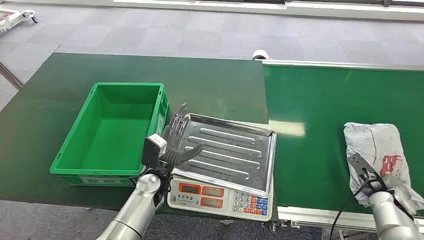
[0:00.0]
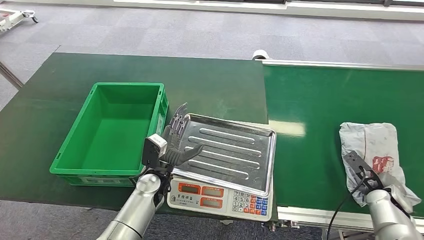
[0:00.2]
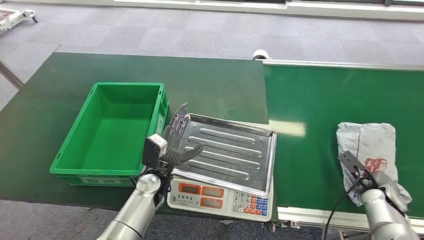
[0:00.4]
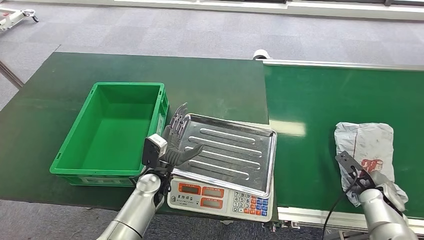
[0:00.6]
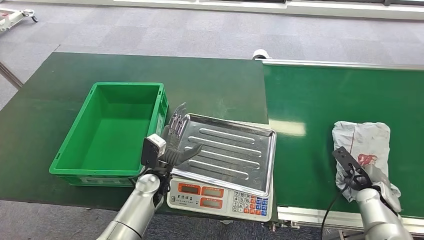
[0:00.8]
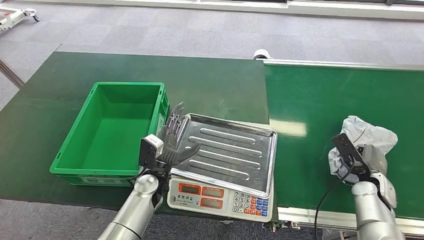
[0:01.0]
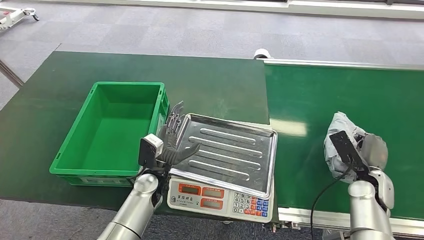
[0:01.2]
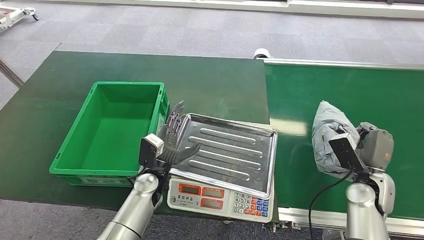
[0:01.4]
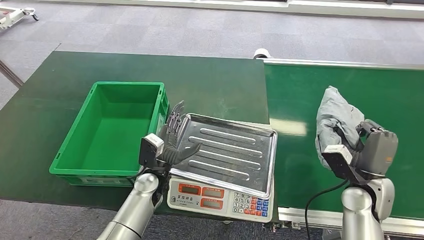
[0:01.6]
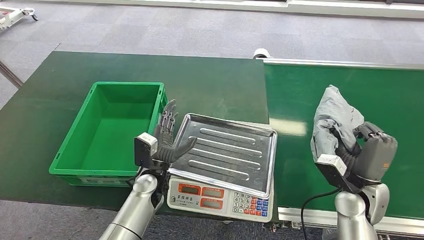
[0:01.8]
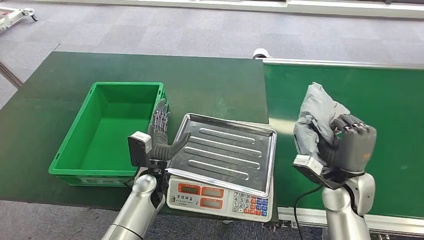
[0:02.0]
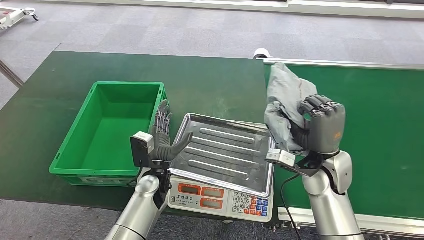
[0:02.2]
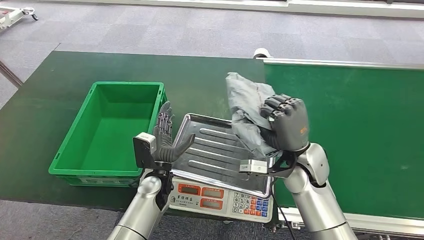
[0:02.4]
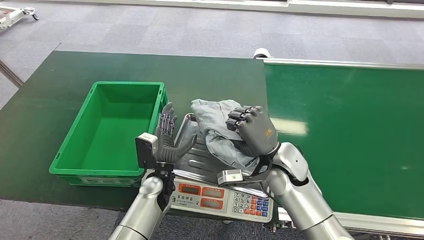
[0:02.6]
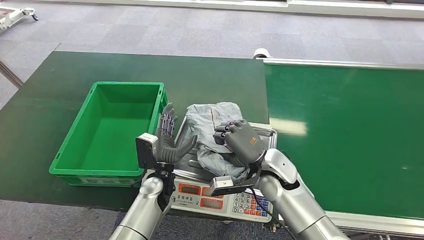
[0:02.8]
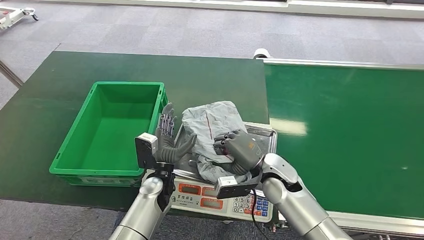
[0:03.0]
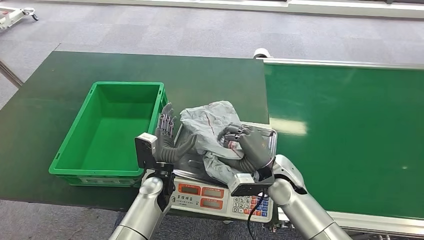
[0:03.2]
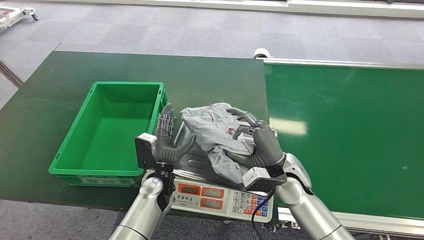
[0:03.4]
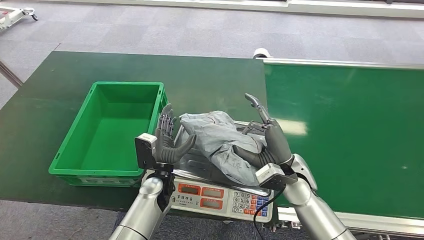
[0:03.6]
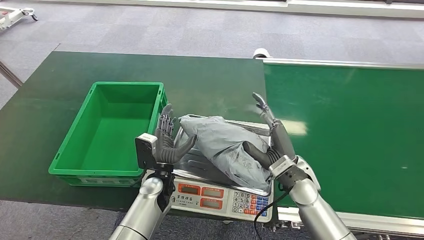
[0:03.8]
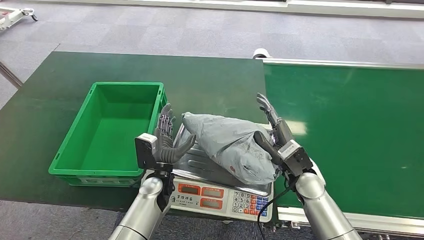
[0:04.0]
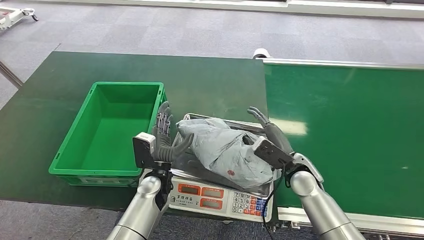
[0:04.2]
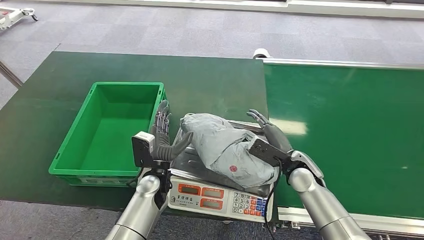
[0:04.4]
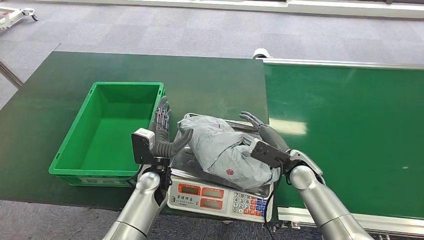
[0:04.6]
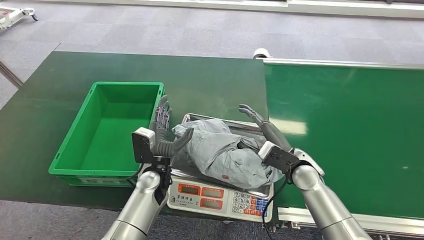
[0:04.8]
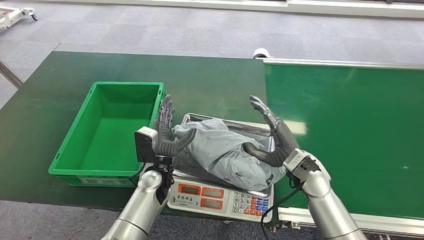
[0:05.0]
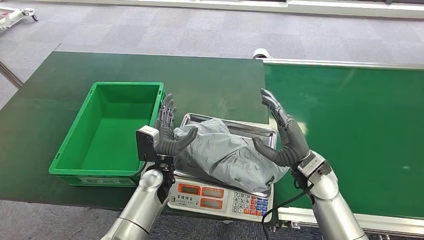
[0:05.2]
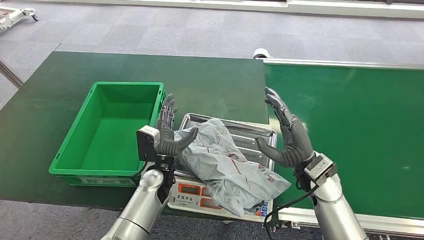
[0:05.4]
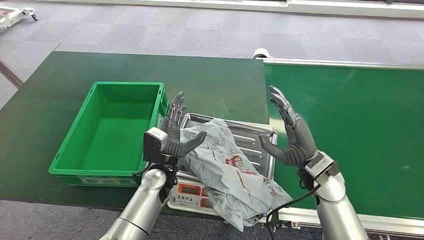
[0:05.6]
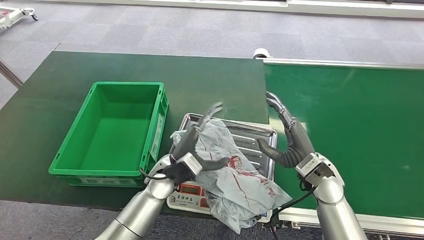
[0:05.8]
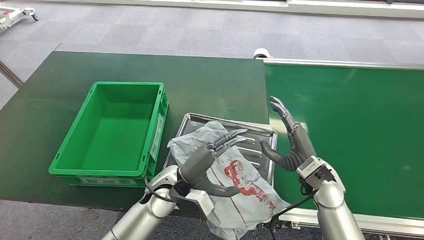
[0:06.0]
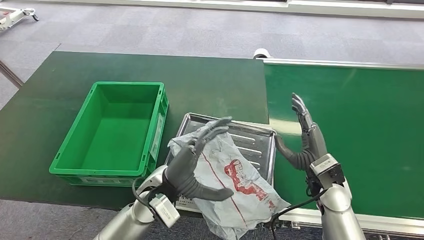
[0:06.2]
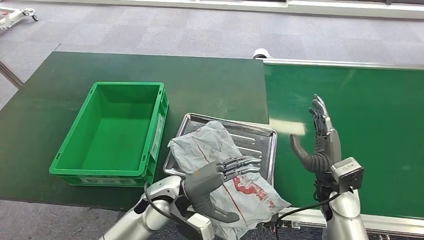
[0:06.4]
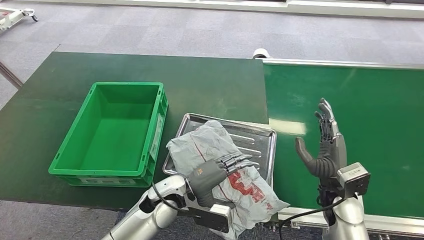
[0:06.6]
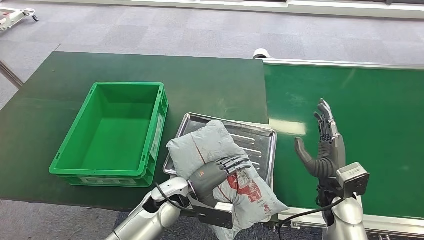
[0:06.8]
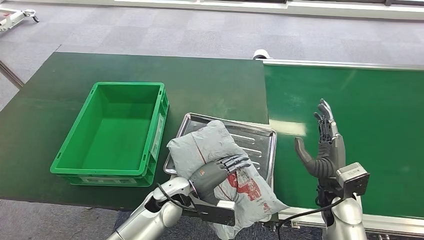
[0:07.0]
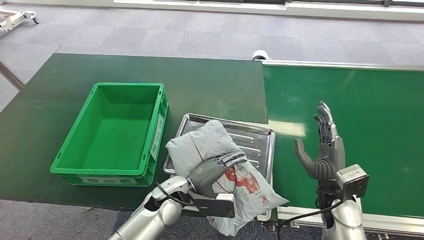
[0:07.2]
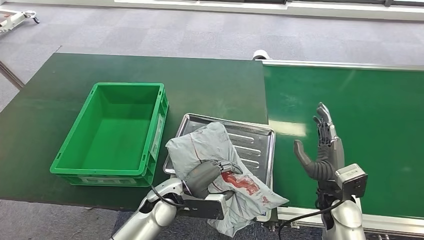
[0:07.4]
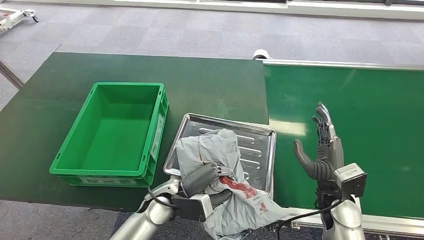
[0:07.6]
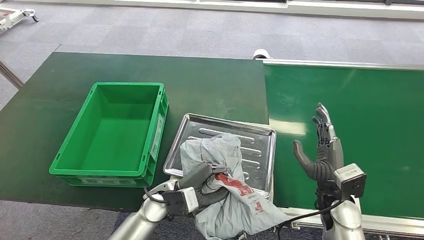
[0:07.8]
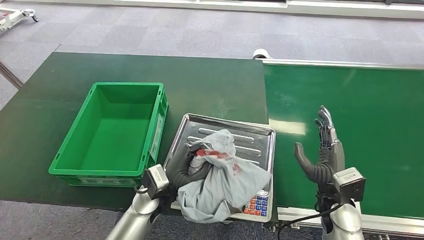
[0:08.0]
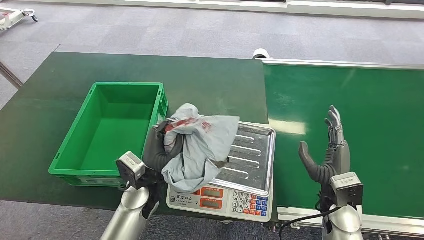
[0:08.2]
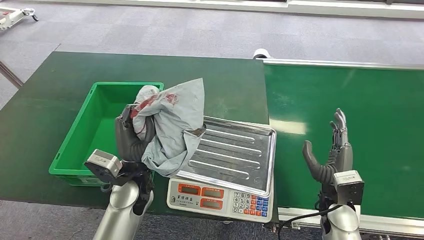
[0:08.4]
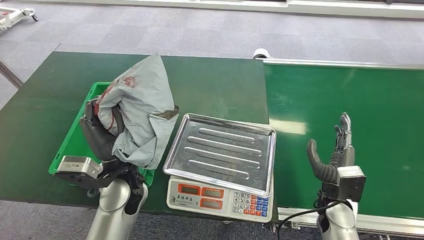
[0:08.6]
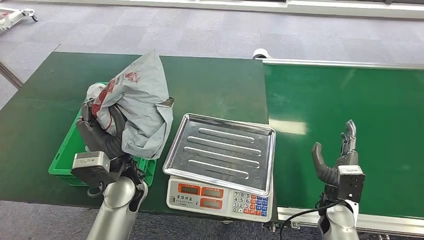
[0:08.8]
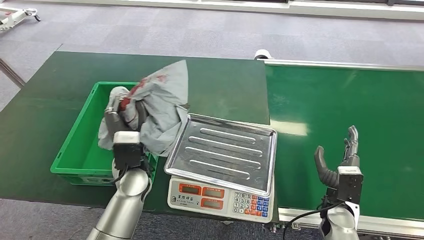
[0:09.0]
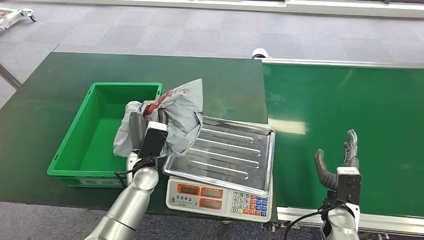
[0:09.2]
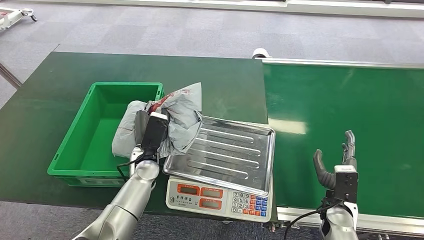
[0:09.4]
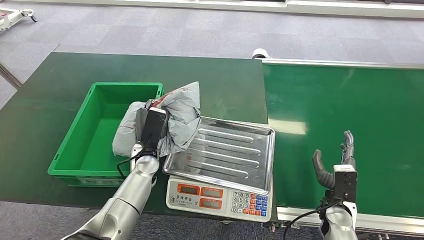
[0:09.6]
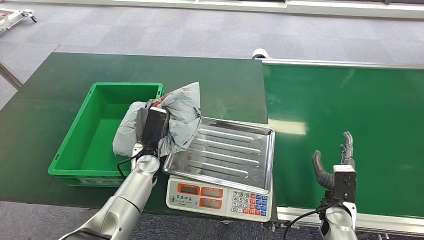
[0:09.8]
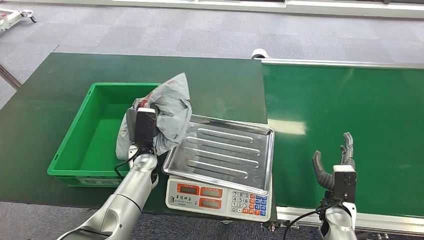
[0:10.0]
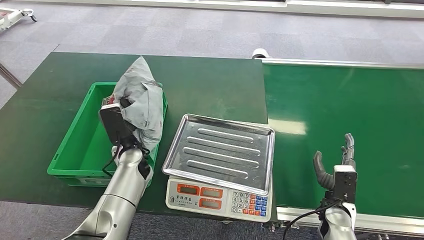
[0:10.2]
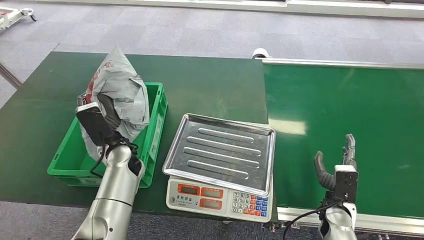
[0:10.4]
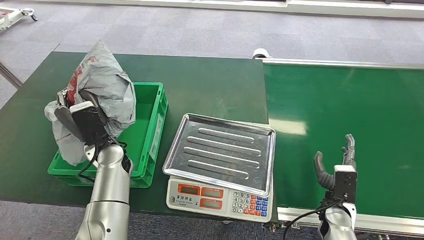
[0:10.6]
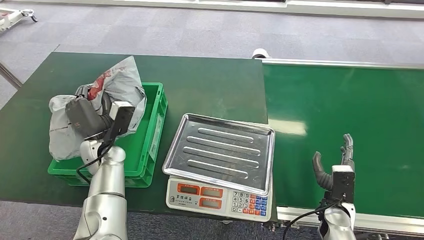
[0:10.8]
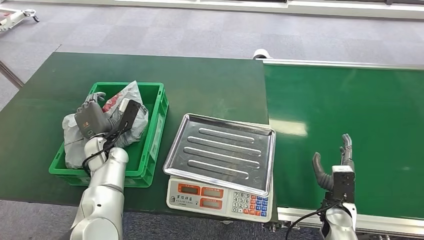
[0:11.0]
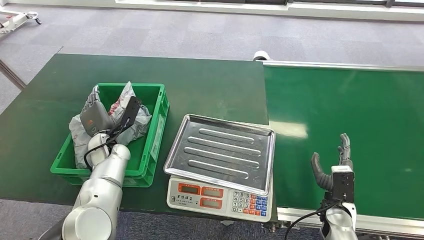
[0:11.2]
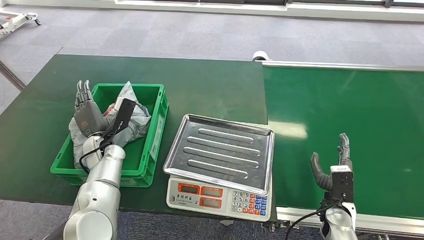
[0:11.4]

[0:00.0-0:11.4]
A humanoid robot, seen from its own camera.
Step, 0:00.0 to 0:01.4: Pick up the package from the conveyor belt.
Step, 0:01.6 to 0:05.4: Place the package onto the inbound machine.
Step, 0:06.4 to 0:08.2: Pick up the package from the inbound machine.
Step, 0:09.2 to 0:11.4: Place the package into the parcel locker.
0:01.4 to 0:02.8: The right hand heads to the left, covering some 25 cm.
0:02.8 to 0:04.2: The right hand moves to the right, approximately 10 cm.
0:04.2 to 0:05.6: The right hand travels upward by roughly 5 cm.
0:08.6 to 0:10.0: The left hand is displaced downward and forward by approximately 10 cm, while the right hand shifts some 5 cm downward.
